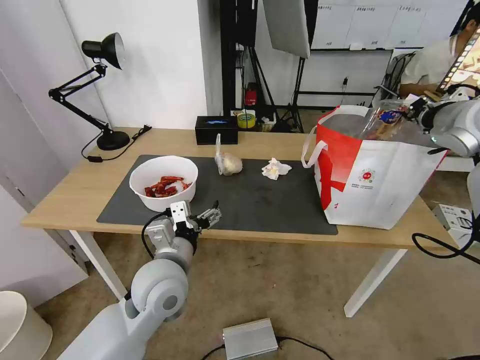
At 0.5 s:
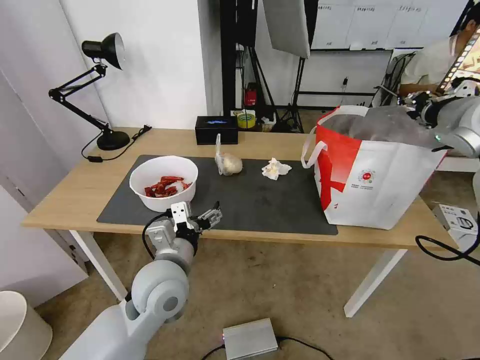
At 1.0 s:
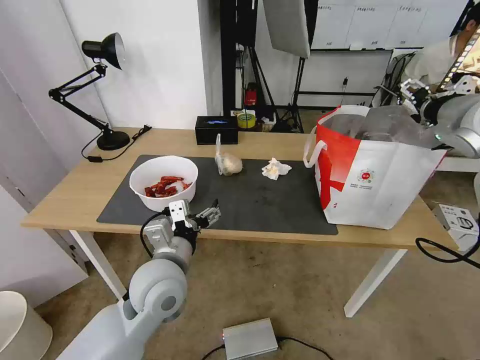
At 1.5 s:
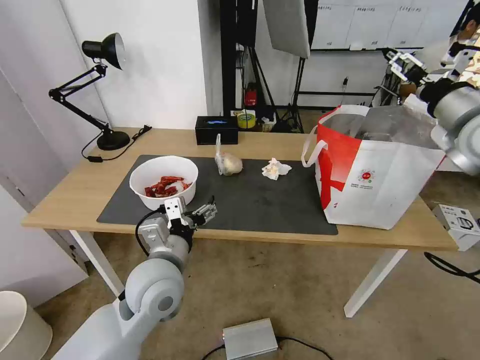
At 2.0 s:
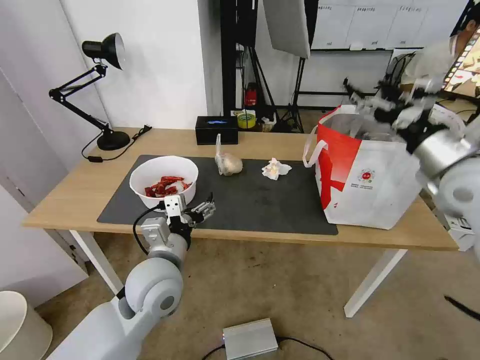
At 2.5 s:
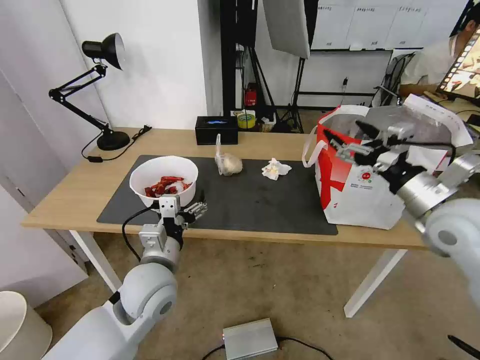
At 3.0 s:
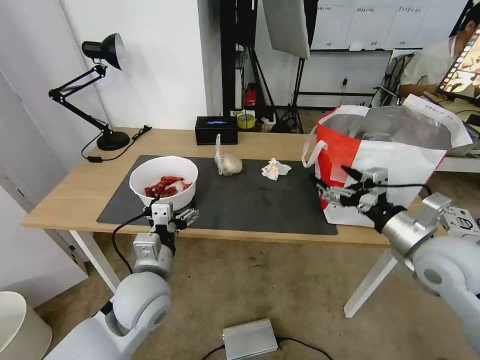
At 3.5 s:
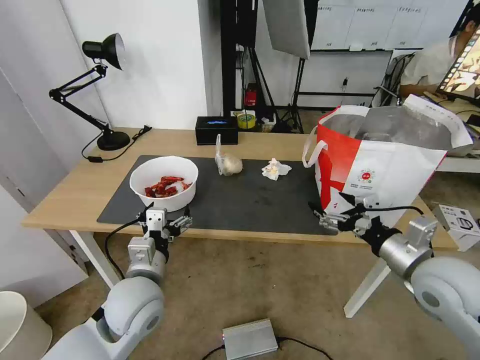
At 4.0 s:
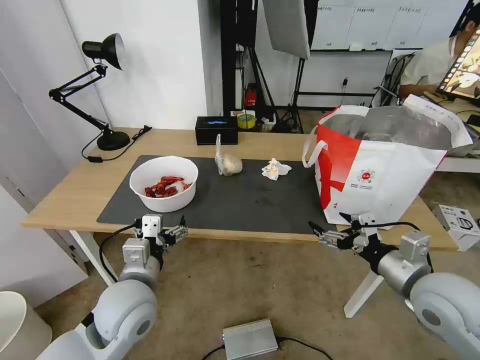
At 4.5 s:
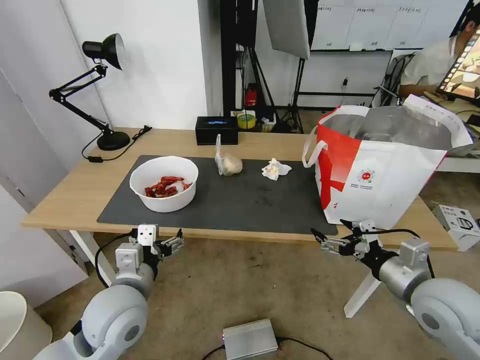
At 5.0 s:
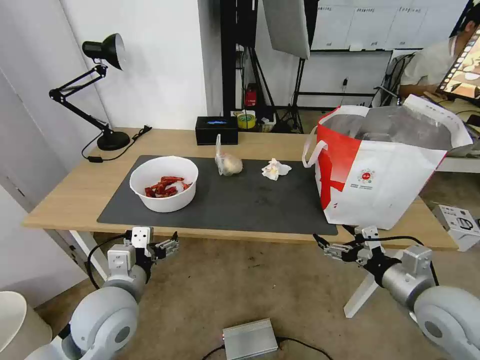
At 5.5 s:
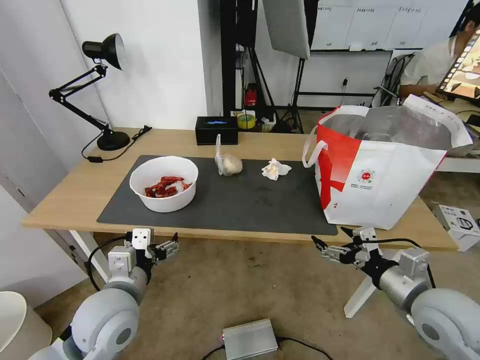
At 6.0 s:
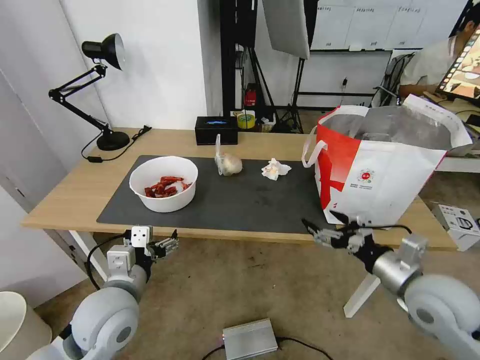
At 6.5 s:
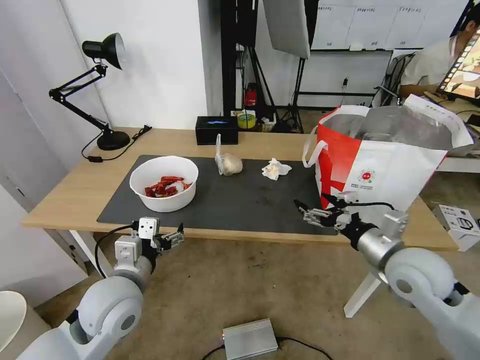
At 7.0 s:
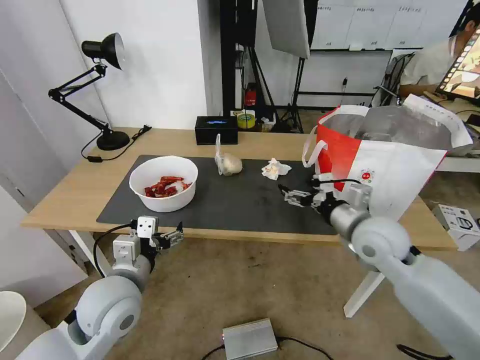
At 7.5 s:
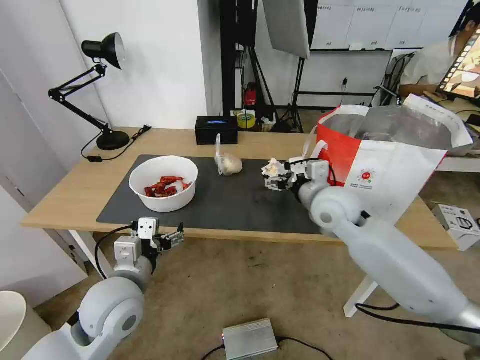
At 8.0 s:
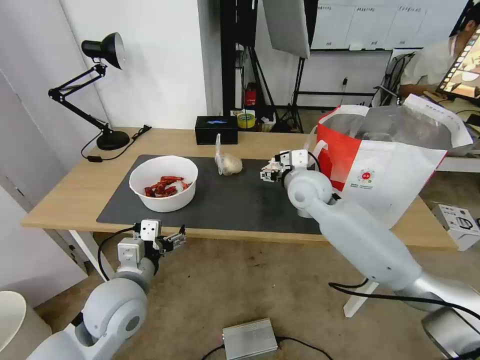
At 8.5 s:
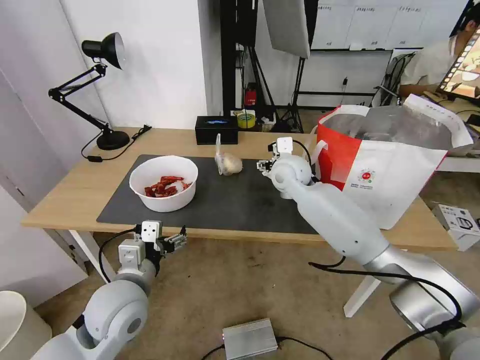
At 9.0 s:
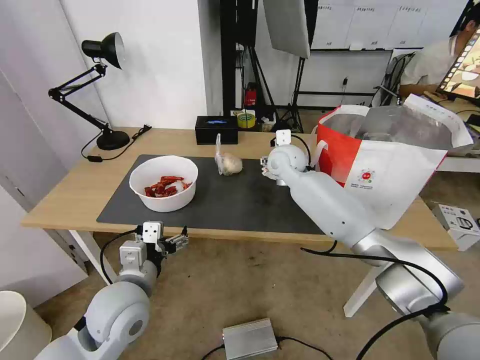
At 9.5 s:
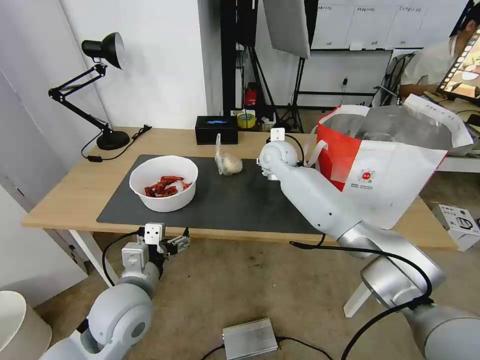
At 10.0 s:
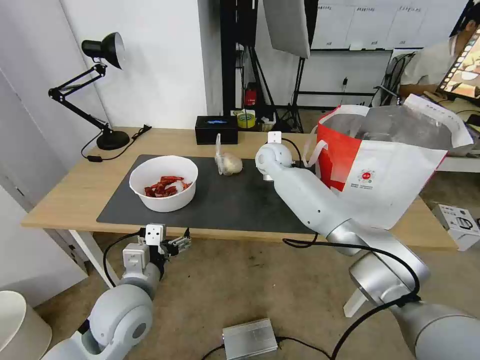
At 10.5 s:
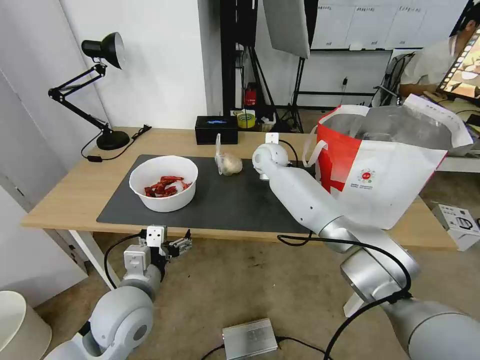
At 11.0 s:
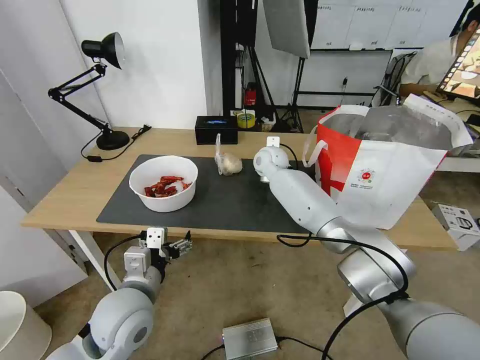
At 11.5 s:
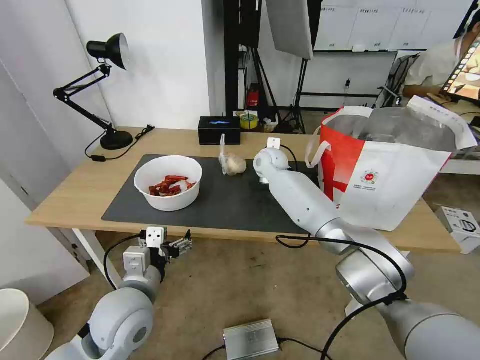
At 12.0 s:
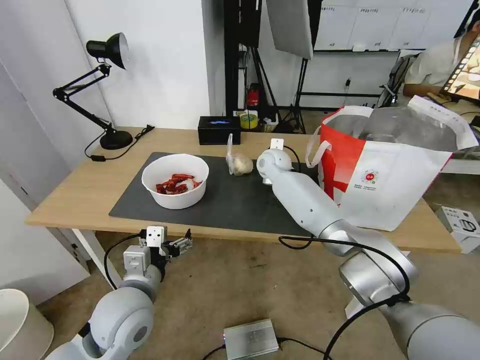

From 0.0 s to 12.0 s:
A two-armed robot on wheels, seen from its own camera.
Task of the whole recording: Pick up the trash from the table and place it into the takeout bag.
From 0.0 s to 2.0 s: The right gripper heads backward and downward, covering some 10 cm, and opens its fingers.
From 2.0 s to 4.0 s: The right gripper is displaced downward and backward by about 20 cm. Meanwhile the left gripper shifts by approximately 5 cm.
From 4.0 s to 6.0 s: The grippers move only a little.
From 6.0 s to 8.0 s: The right gripper moves forward and to the left, some 30 cm.
From 8.0 s to 10.0 s: The right gripper is displaced forward and to the left by approximately 15 cm.
From 10.0 s to 12.0 s: The right gripper closes its fingers.

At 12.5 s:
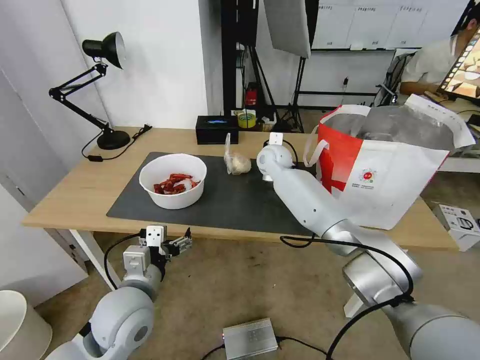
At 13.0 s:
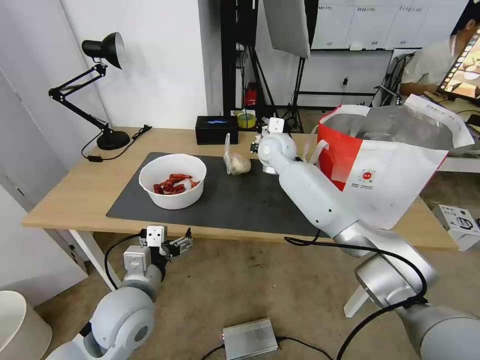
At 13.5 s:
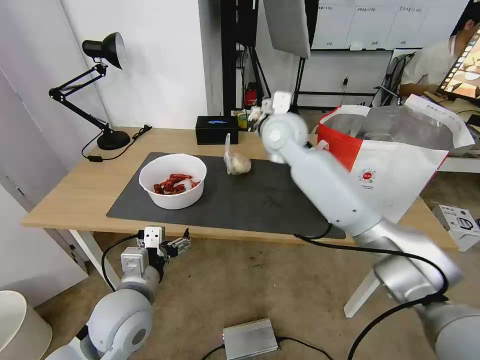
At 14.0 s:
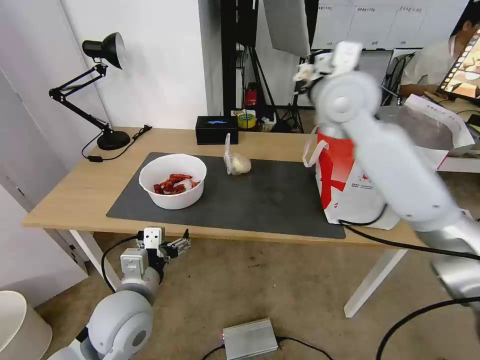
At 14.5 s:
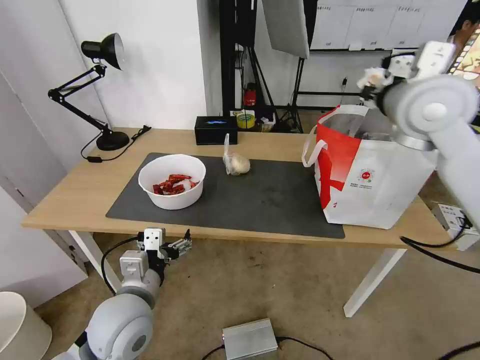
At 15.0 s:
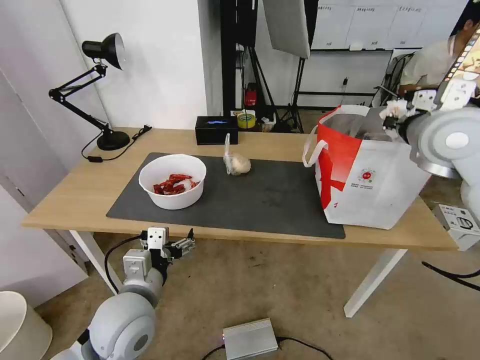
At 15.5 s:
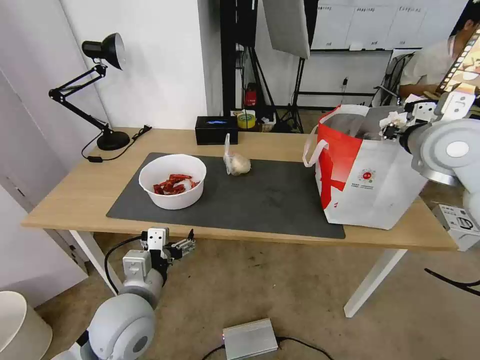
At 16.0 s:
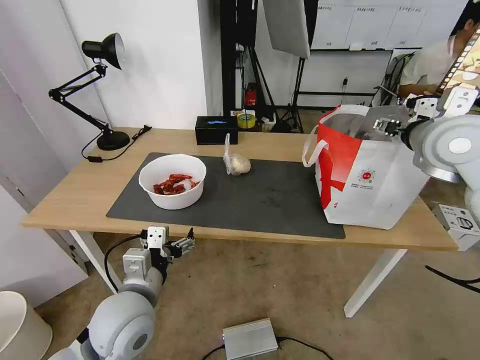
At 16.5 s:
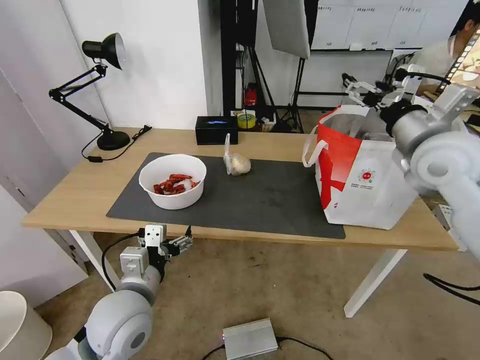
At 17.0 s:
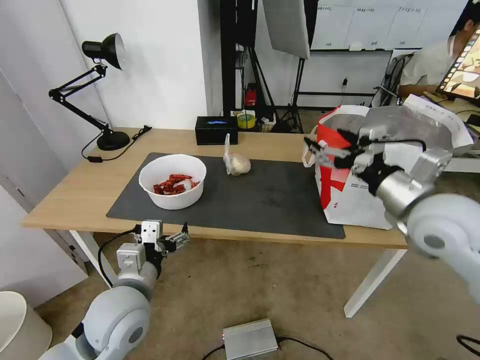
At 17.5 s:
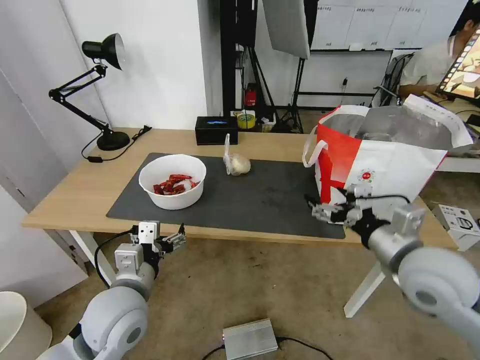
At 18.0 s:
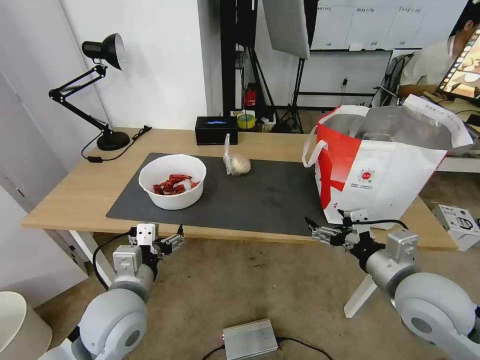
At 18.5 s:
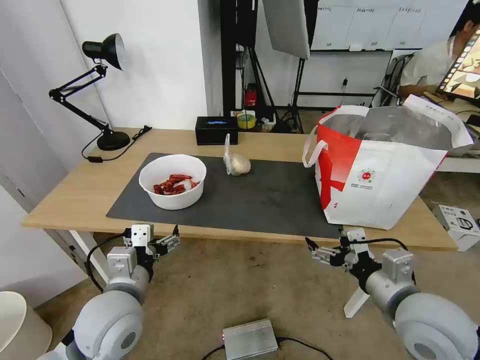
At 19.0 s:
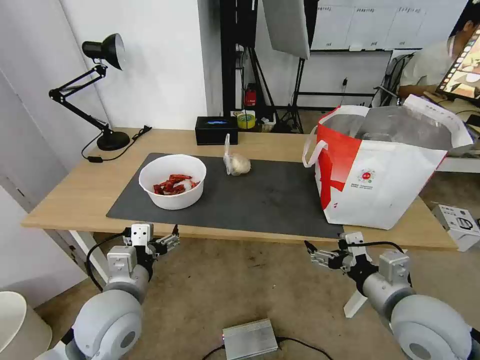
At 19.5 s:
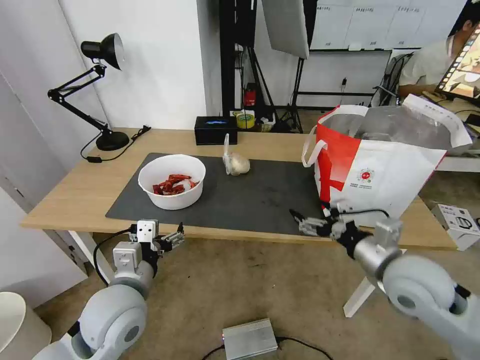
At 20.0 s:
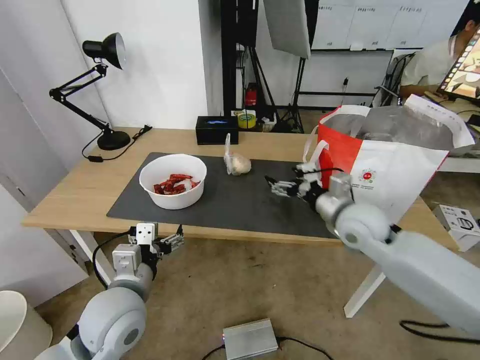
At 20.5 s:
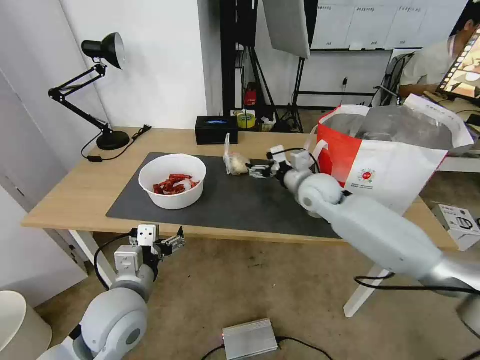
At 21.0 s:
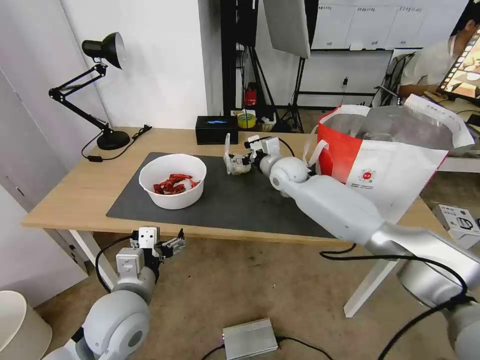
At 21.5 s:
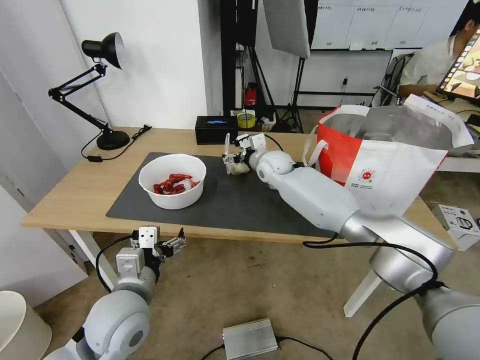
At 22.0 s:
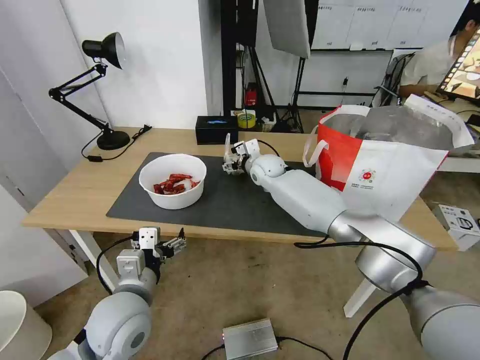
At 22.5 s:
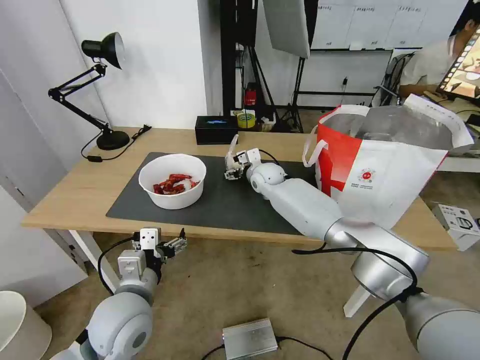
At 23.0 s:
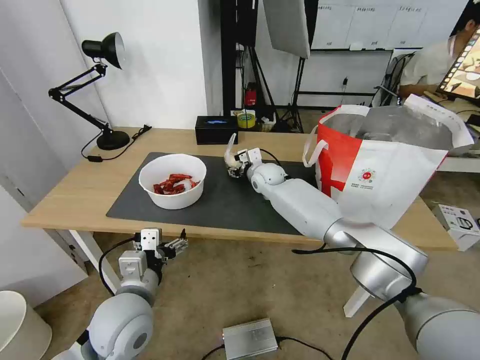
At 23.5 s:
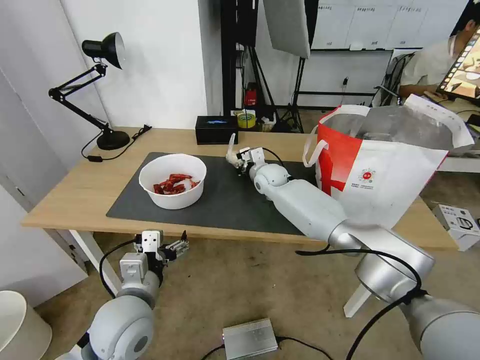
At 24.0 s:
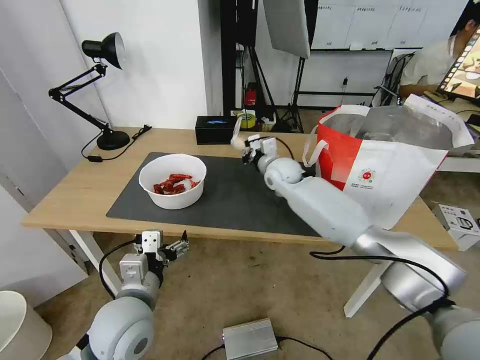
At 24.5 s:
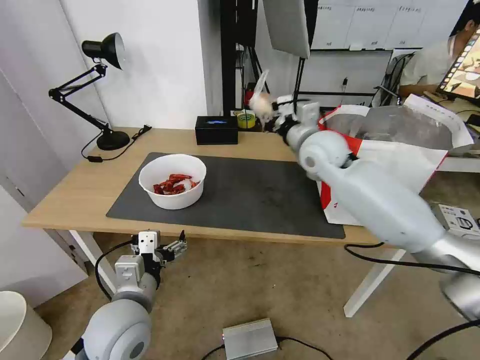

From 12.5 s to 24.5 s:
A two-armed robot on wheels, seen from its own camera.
Task of the whole recording: Pick up the trash from the table and place it into the takeout bag.
From 12.5 s to 14.5 s: The right gripper heads upward, to the right and backward, covering roughly 35 cm.
From 14.5 s to 16.5 s: The right gripper is displaced downward by approximately 5 cm, and opens.
From 16.5 s to 18.5 s: The right gripper travels backward and downward by roughly 25 cm.
From 18.5 s to 20.5 s: The right gripper shifts some 30 cm forward.
From 20.5 s to 22.5 s: The right gripper heads forward, to the left and downward, covering roughly 15 cm.
From 22.5 s to 24.5 s: The right gripper heads upward, backward and to the right, covering approximately 20 cm, and closes.

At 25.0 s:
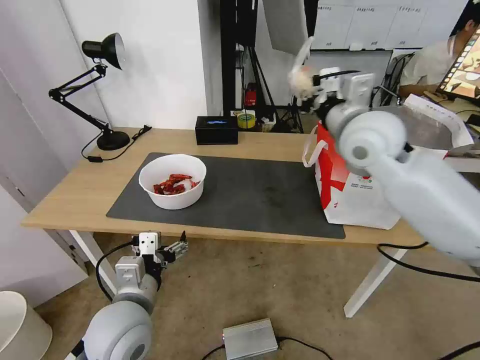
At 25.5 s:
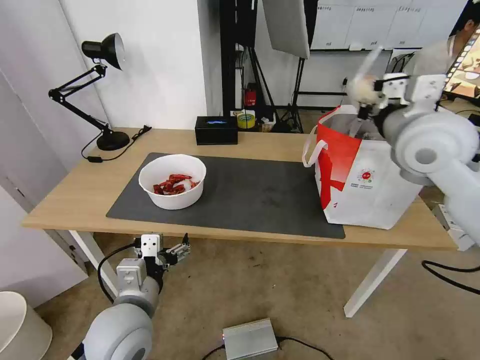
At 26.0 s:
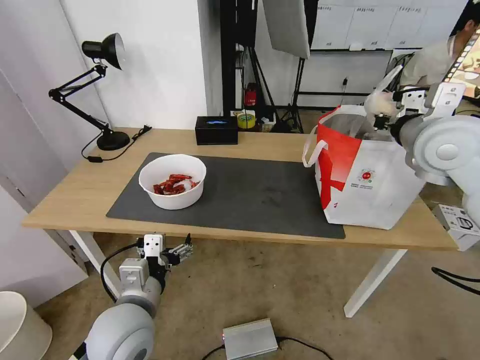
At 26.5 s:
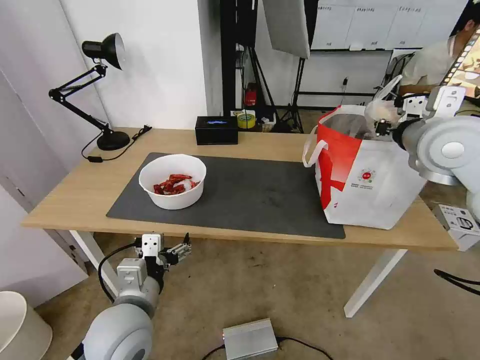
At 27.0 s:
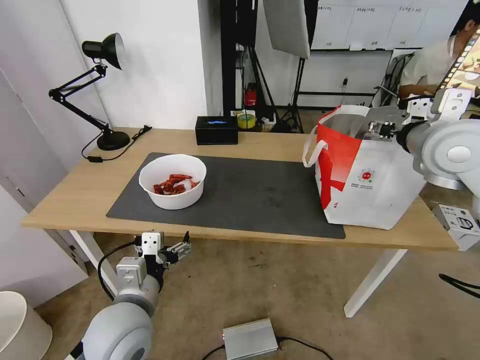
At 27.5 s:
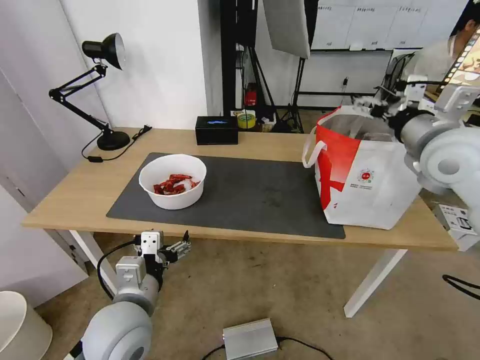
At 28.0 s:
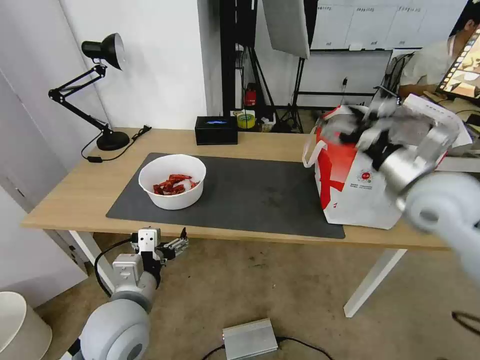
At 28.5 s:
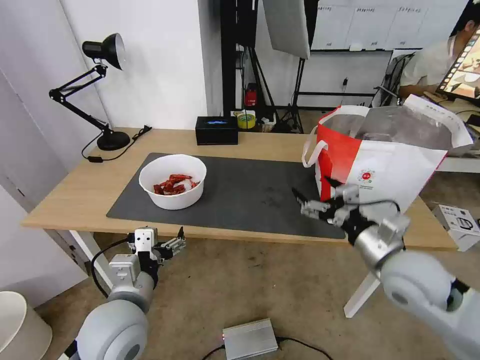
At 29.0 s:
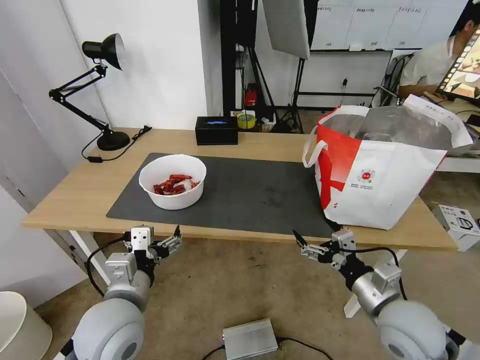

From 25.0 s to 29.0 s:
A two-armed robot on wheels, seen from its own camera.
Task of the whole recording: Pick up the trash from the table and place it into the takeout bag.
From 25.0 s to 27.0 s: The right gripper shifts about 10 cm to the right, and opens up.
From 27.0 s to 29.0 s: The right gripper travels downward and backward by roughly 30 cm.
